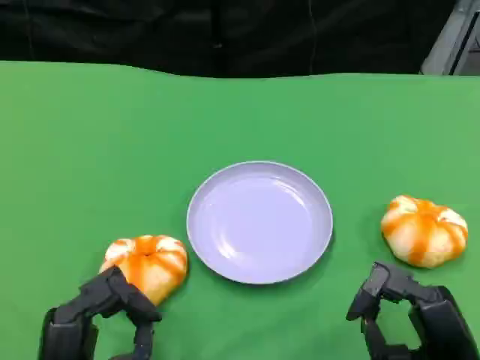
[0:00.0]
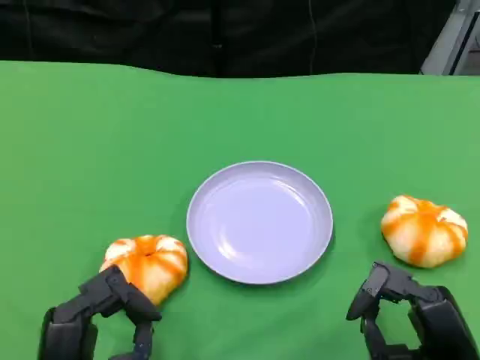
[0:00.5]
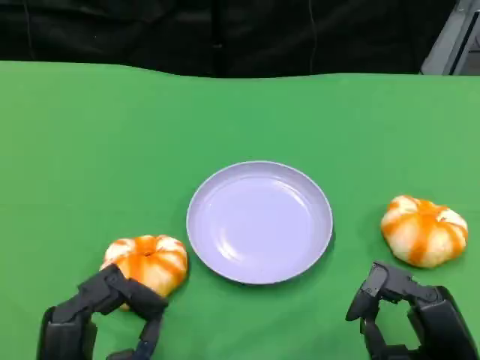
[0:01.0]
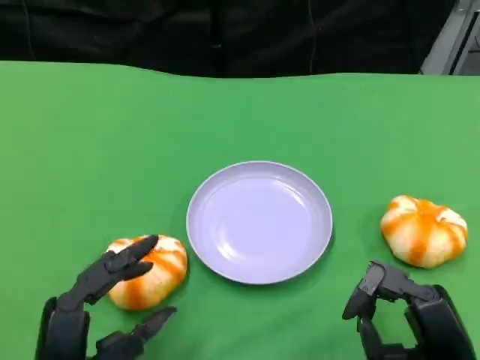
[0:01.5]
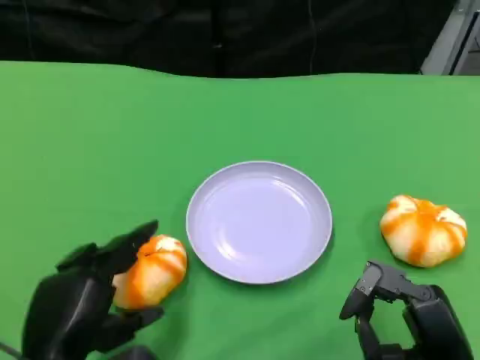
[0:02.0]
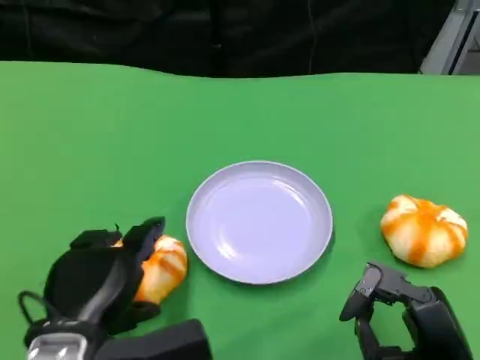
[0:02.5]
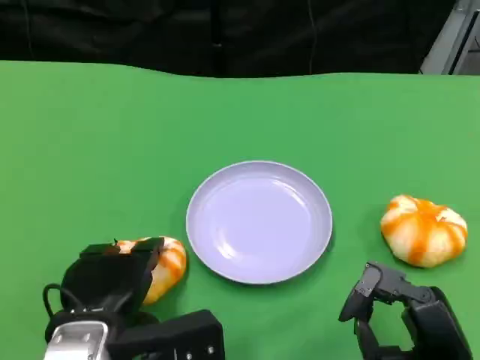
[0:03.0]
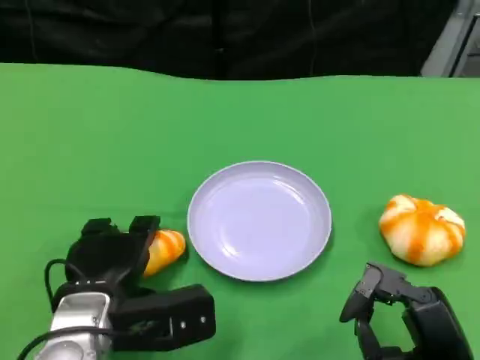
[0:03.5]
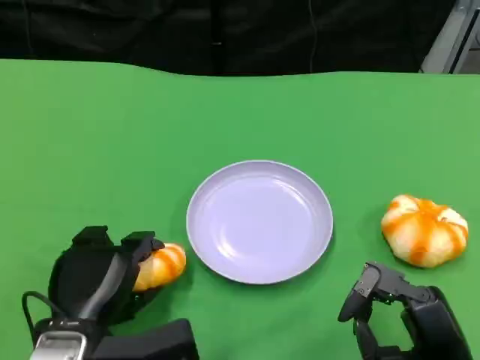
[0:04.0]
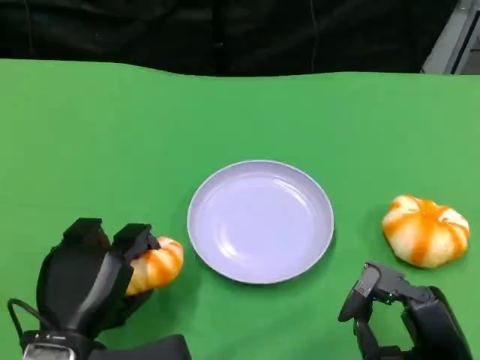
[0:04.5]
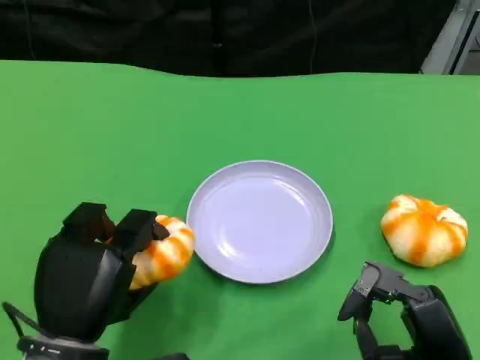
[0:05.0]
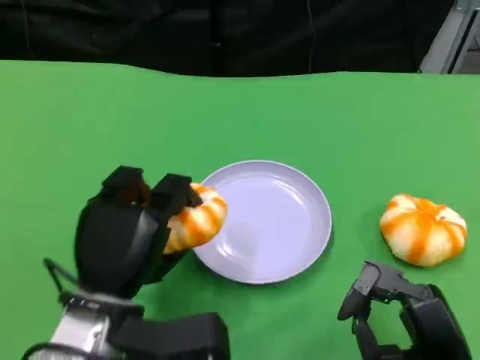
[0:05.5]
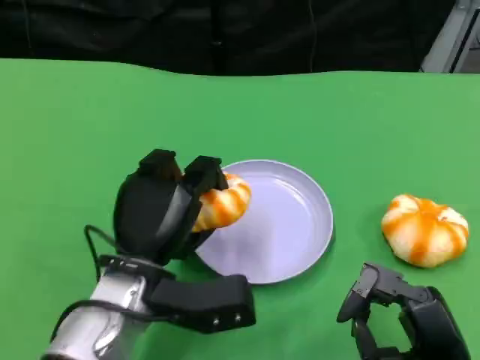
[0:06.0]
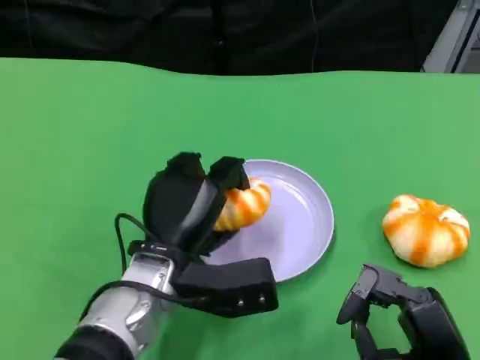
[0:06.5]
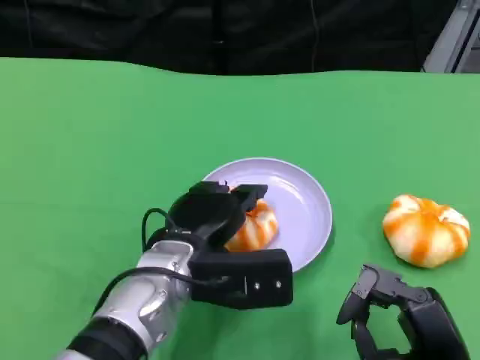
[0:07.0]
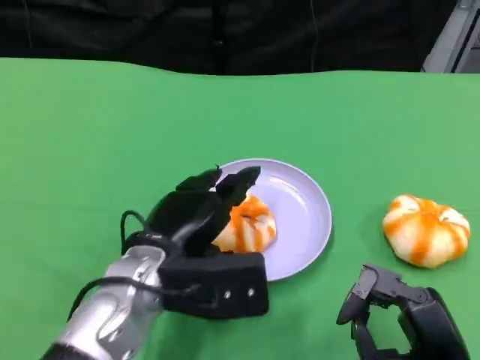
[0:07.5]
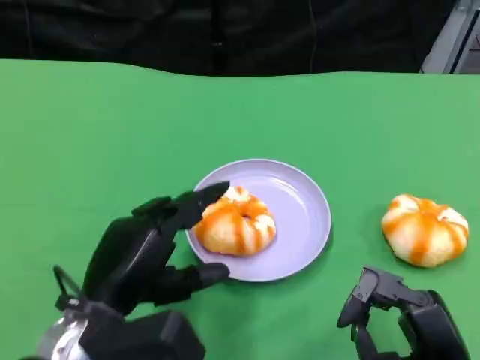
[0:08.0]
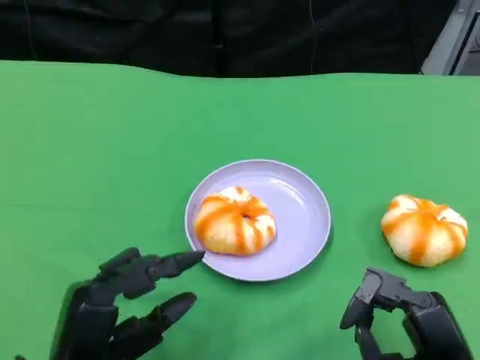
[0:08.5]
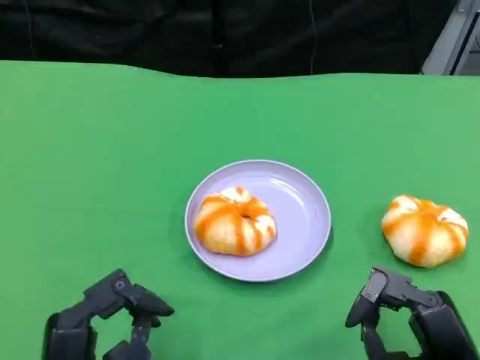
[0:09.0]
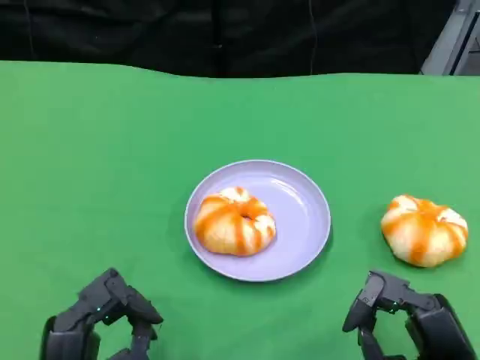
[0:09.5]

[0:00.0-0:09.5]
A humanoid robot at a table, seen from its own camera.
Task of the whole recording: Grasp the bread from the table and place it into the plate.
0:00.0 to 0:02.0: The left hand moves some 5 cm.
0:02.0 to 0:04.0: The left hand moves about 5 cm.
0:07.5 to 0:09.5: The left hand is displaced backward and to the left by approximately 15 cm.

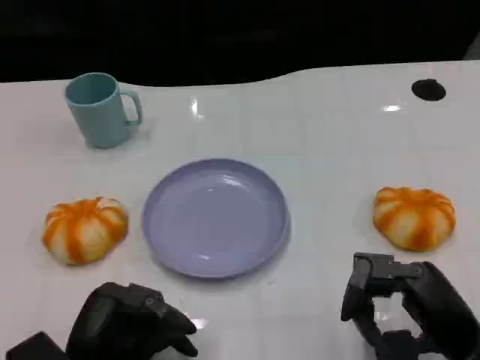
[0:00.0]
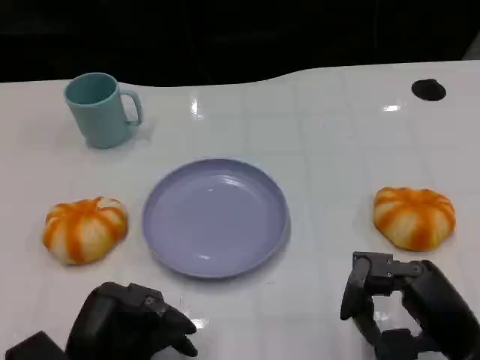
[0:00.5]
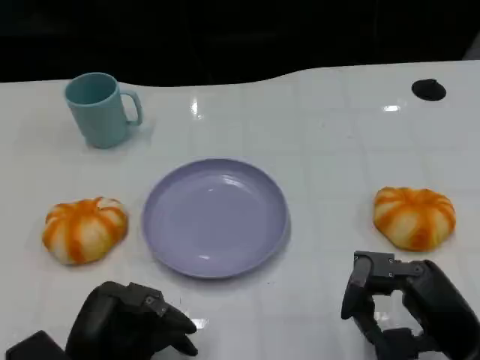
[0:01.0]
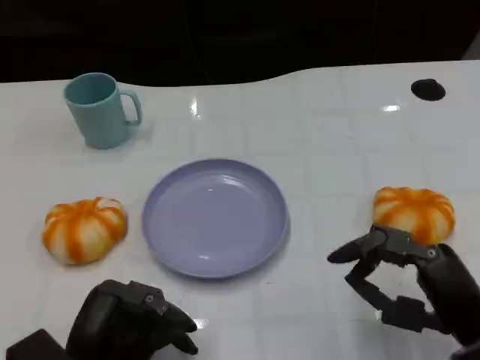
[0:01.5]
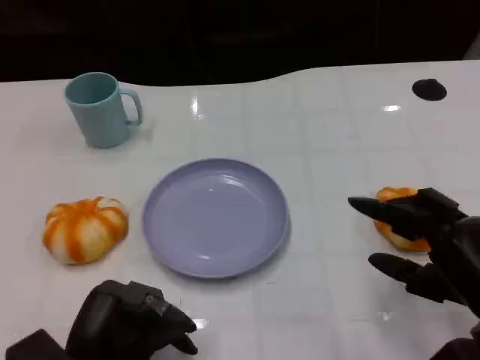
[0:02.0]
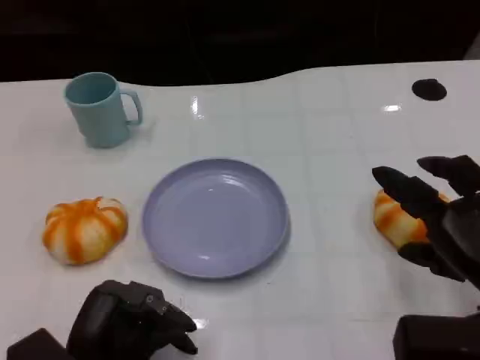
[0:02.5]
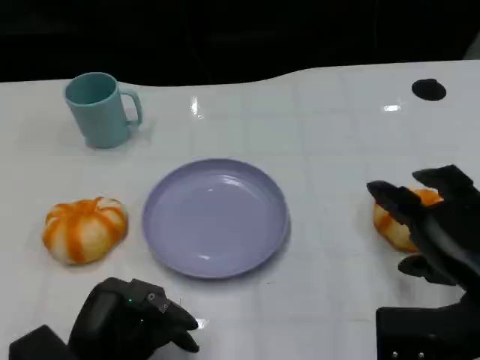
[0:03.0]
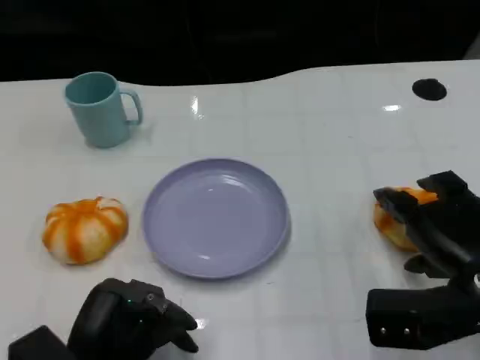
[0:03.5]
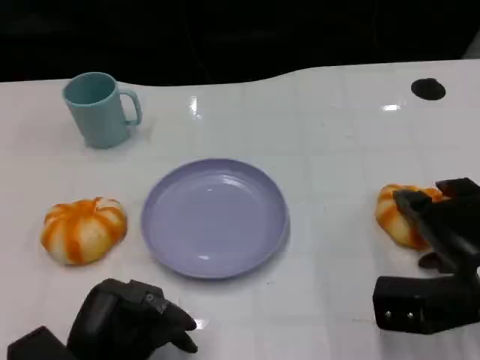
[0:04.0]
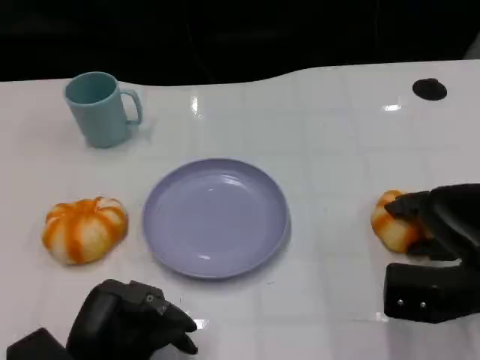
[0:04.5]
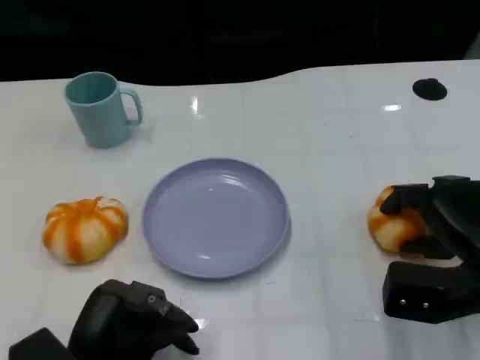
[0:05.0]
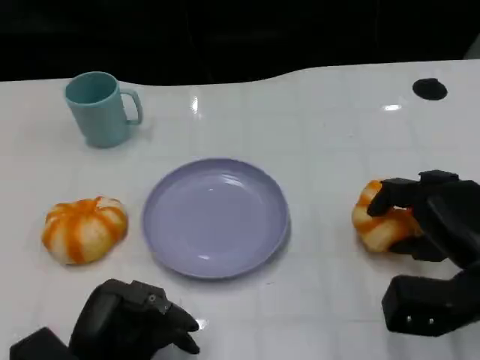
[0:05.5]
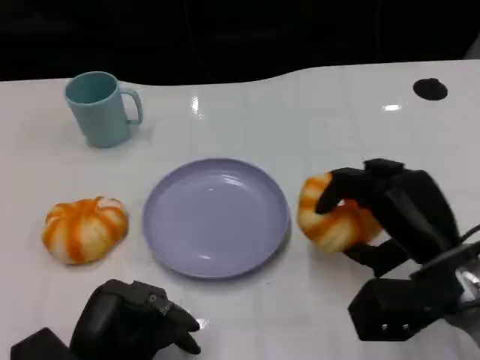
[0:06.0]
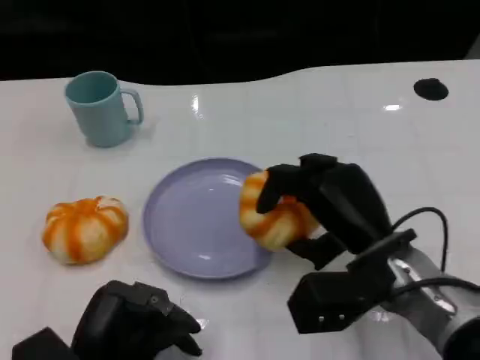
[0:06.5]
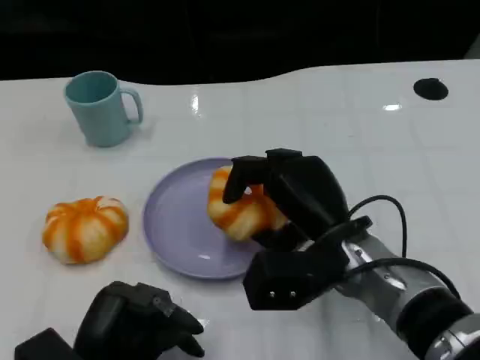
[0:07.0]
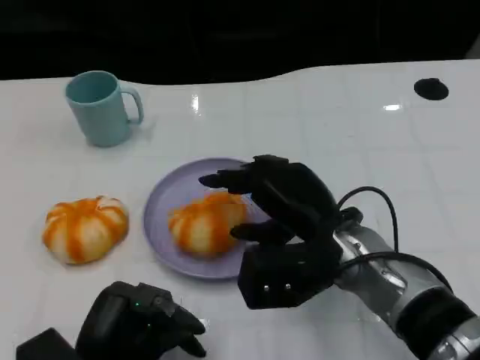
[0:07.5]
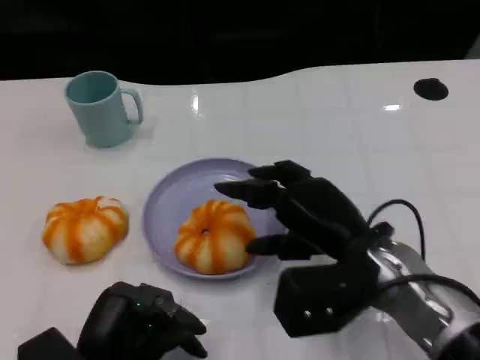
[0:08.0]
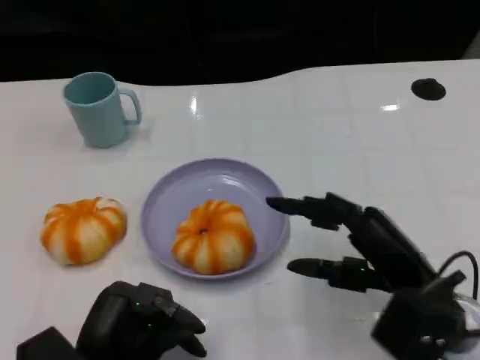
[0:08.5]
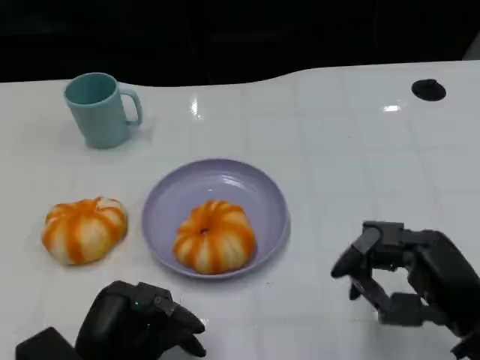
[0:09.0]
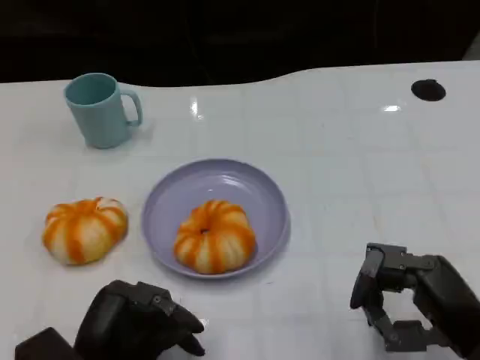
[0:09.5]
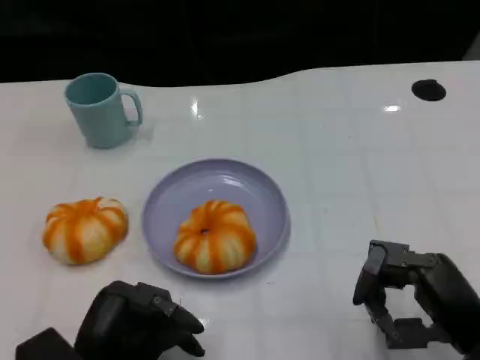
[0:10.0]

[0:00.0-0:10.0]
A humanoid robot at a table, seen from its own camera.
Task of the whole recording: Grasp the bread from the table and place it into the plate.
0:02.0 to 0:04.0: The right hand moves forward, approximately 5 cm.
0:04.0 to 0:06.0: The right hand shifts by some 5 cm.
0:06.0 to 0:08.0: The right hand shifts some 5 cm to the left.
0:08.0 to 0:10.0: The right hand goes some 15 cm to the right and backward.

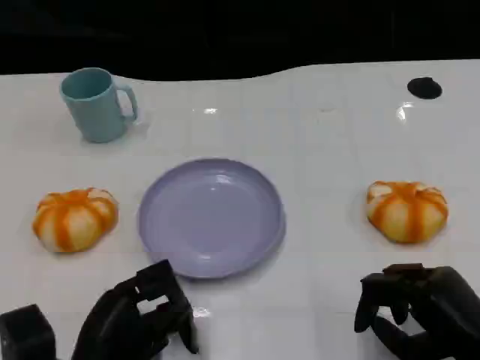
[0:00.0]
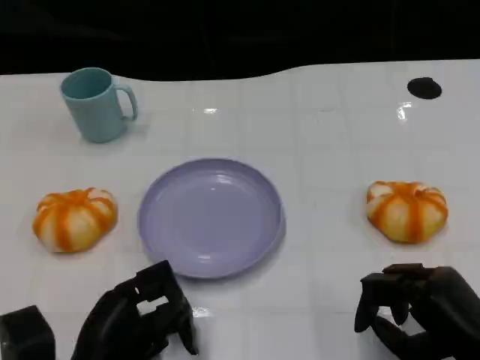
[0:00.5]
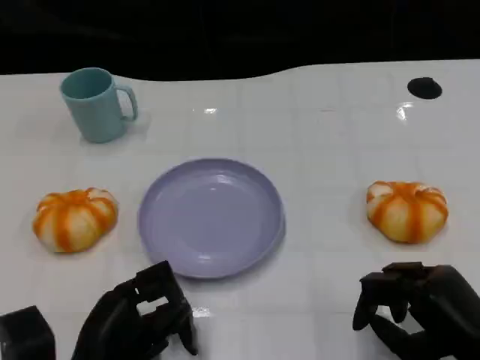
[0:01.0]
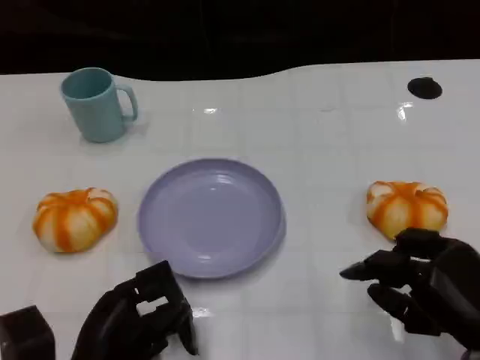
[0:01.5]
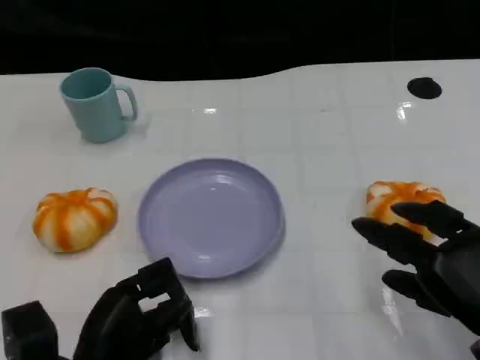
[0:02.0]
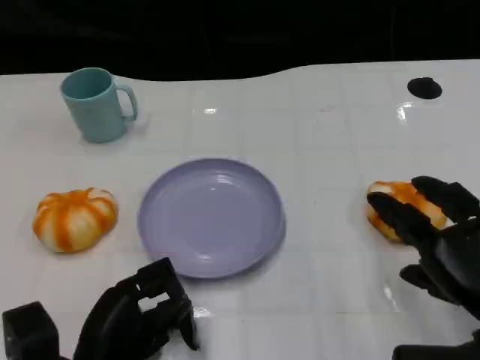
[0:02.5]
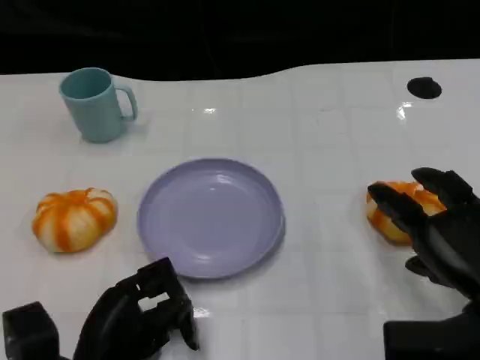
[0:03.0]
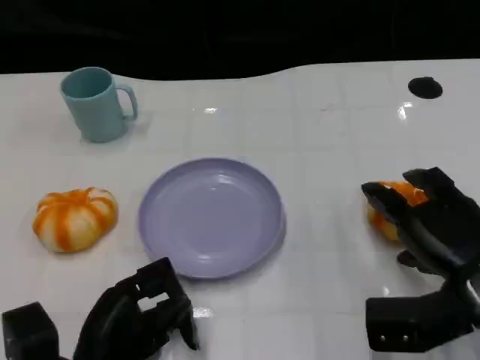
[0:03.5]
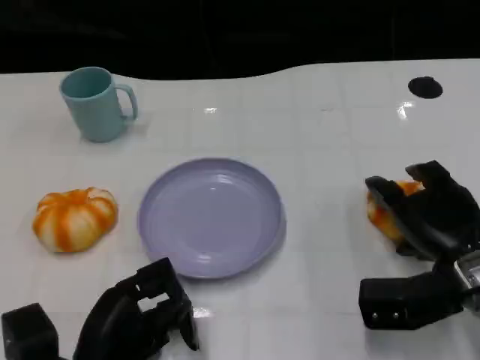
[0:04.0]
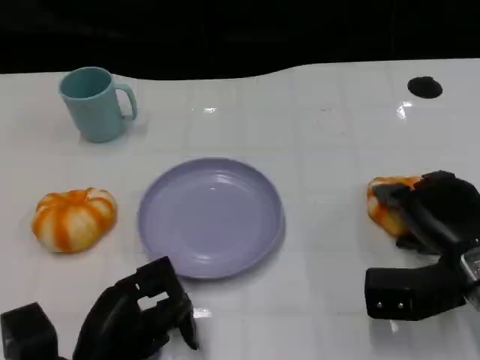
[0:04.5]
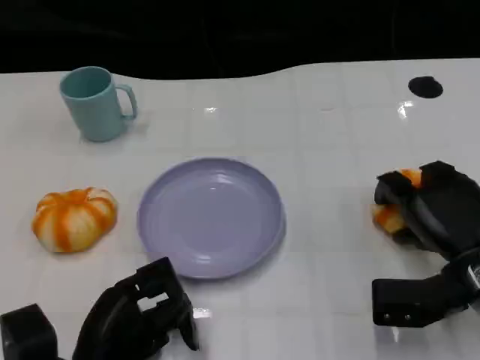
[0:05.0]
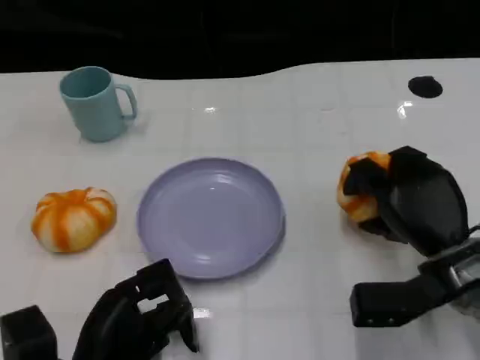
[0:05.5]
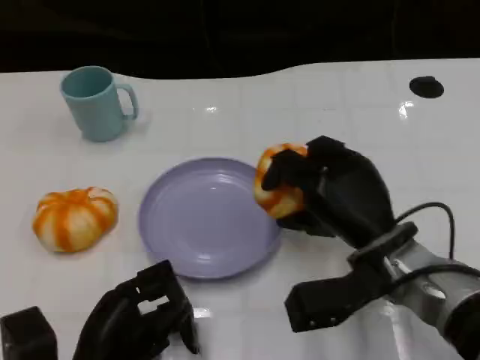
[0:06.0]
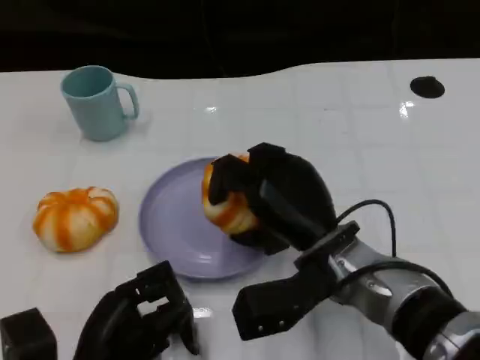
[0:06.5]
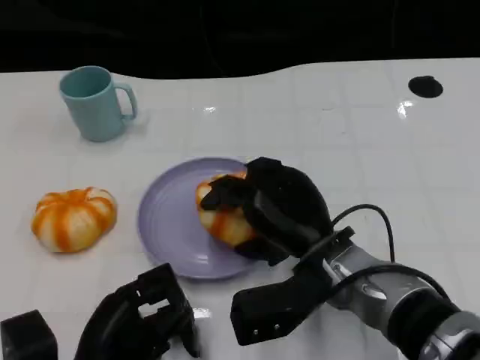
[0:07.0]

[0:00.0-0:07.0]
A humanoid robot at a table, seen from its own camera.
Task of the whole recording: Grasp the bread from the table and place it into the plate.
0:02.0 to 0:03.5: The right hand moves forward, some 5 cm.
0:03.5 to 0:05.0: The hands stay close to where they were, moving slightly.
0:05.0 to 0:07.0: The right hand travels to the left by some 15 cm.
